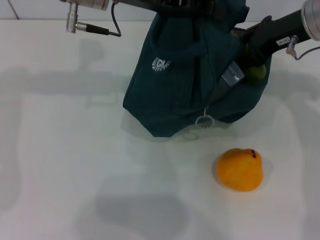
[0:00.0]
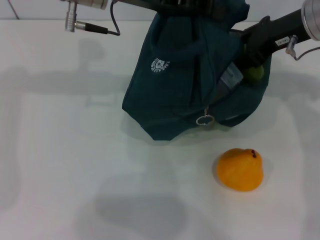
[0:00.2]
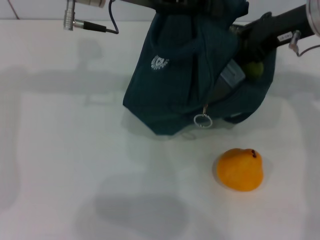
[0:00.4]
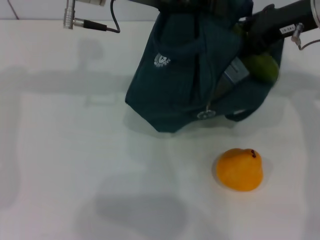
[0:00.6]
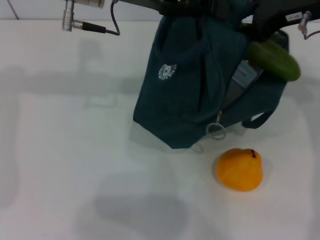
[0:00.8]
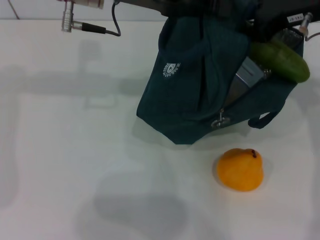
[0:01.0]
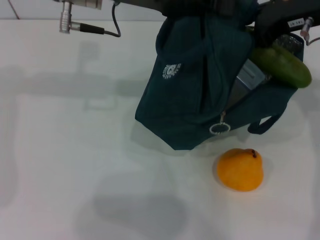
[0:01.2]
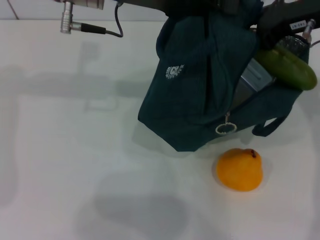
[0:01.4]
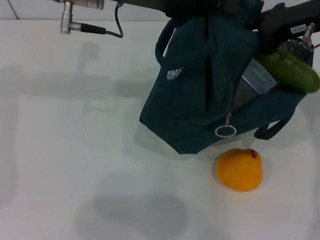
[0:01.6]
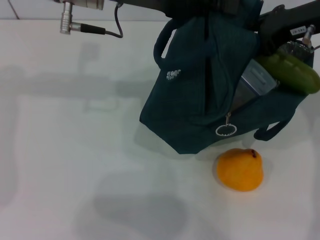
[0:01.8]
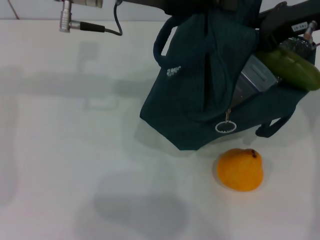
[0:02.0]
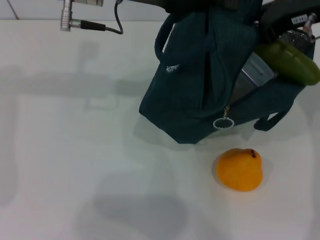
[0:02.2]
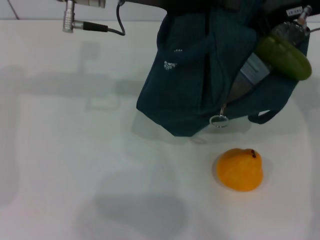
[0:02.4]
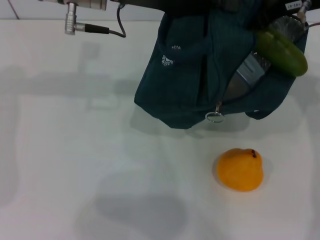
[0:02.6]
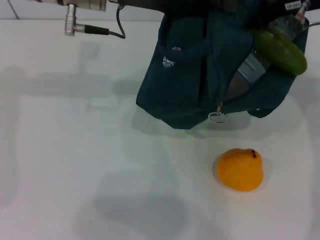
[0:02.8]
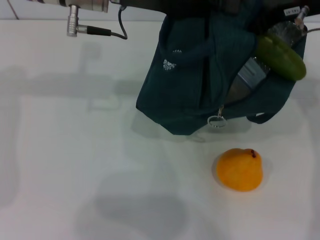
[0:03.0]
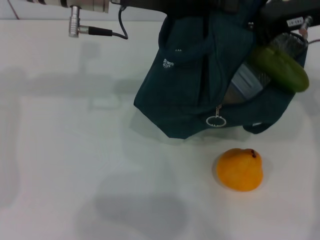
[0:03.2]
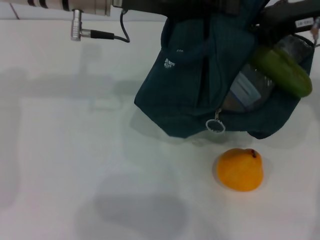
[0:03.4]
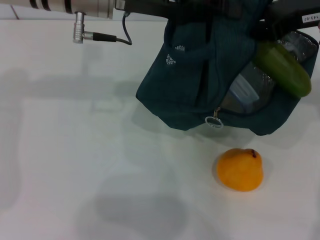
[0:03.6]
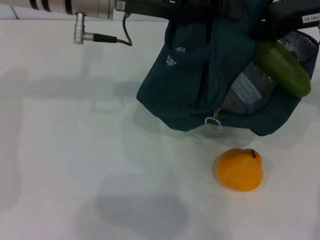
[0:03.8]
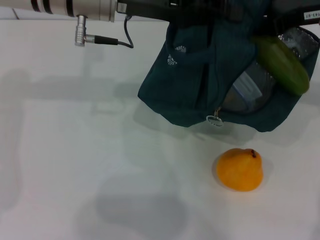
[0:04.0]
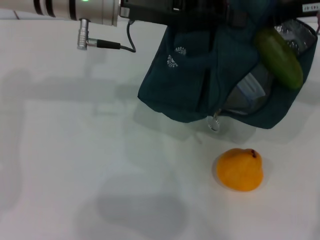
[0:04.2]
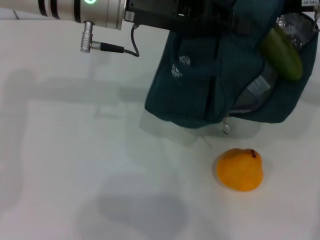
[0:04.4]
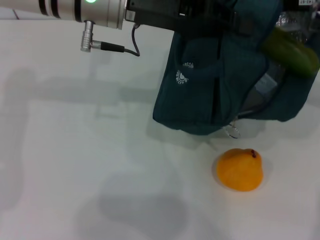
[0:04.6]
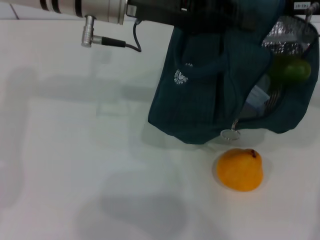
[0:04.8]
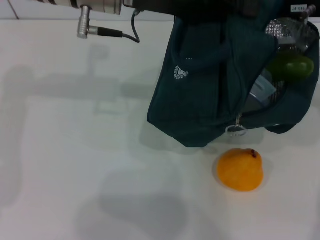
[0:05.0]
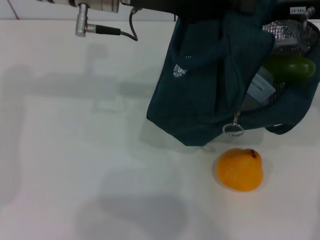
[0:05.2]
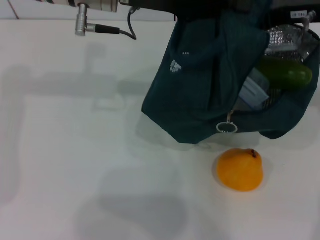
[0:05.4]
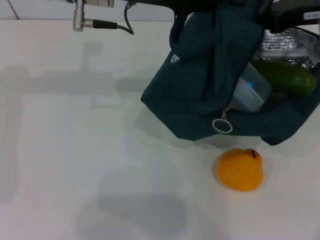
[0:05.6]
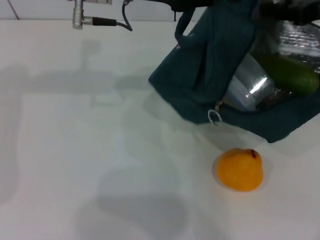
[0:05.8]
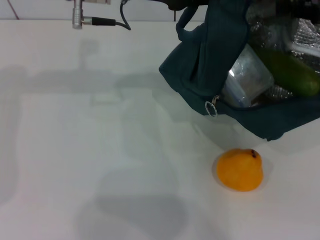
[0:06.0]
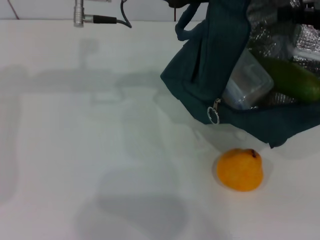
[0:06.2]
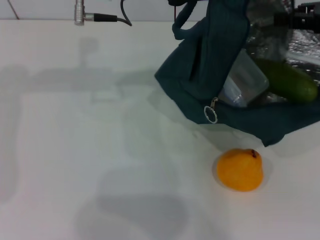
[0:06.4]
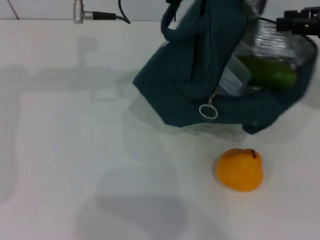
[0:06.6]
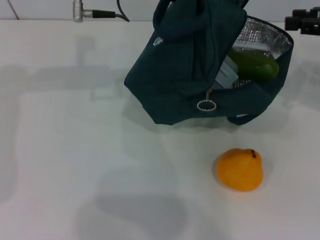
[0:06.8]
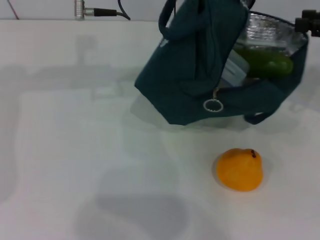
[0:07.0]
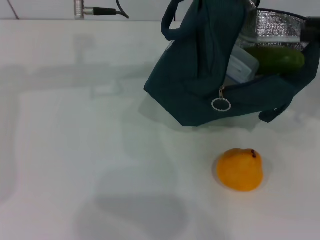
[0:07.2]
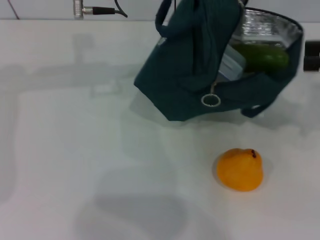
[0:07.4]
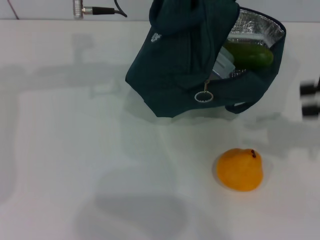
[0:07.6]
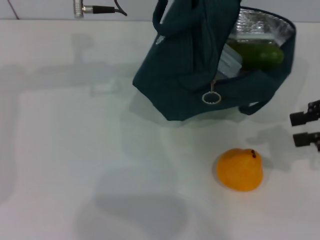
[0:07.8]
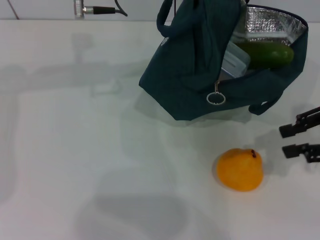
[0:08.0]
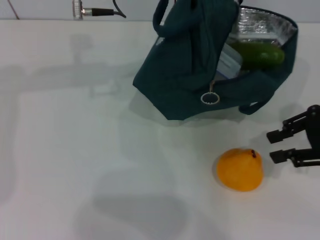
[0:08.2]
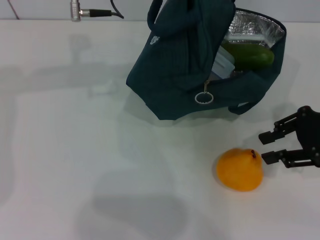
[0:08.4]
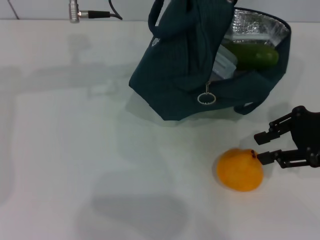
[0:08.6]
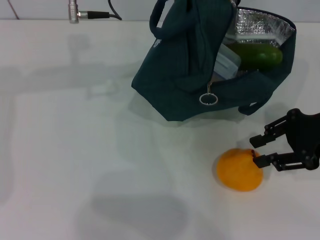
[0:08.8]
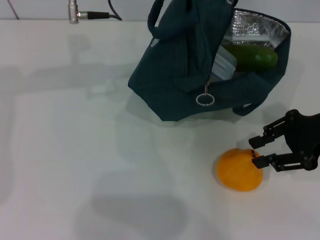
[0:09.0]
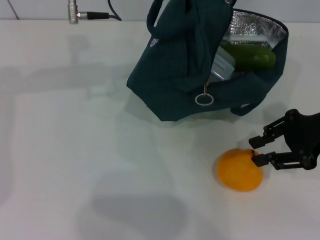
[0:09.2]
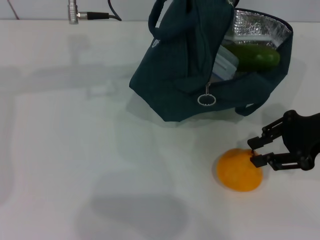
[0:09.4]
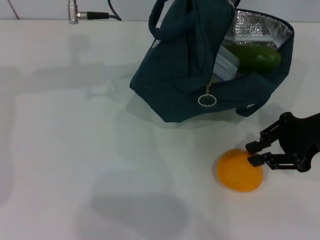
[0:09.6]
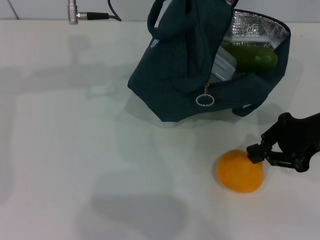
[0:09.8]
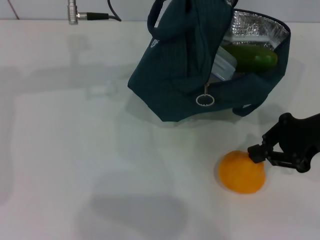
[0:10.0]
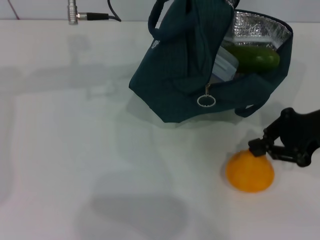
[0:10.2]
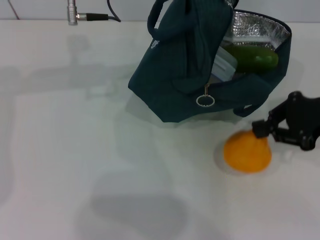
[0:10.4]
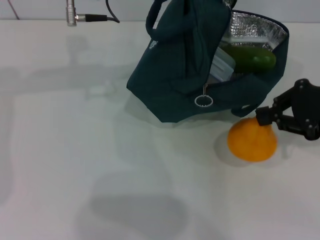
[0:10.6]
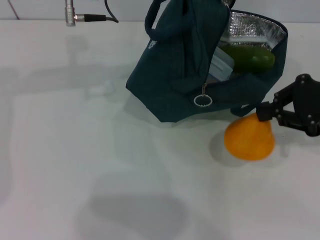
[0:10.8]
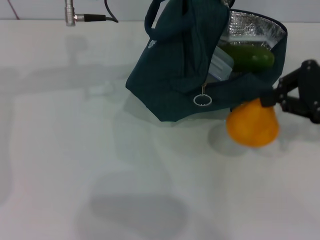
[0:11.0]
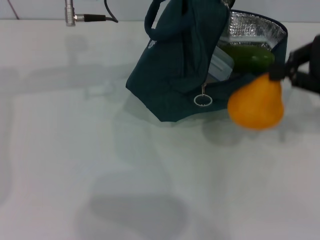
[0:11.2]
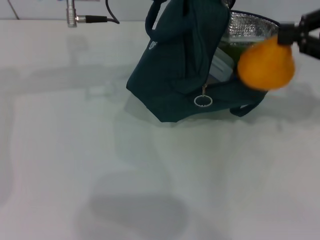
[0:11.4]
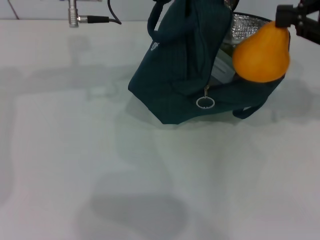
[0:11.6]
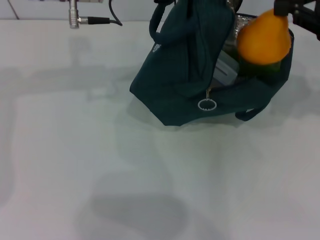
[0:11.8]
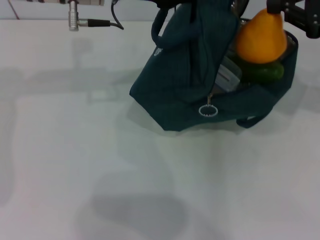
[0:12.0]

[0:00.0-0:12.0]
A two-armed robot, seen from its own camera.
Step, 0:00.0 to 0:06.8: Put the cucumber into the lunch bag with your right hand.
Step, 0:07.2 to 0:09.6: Grab the pear with your right hand.
0:00.0 to 0:03.0: The grippers move only a little.
0:03.0 to 0:04.4: The grippers move only a little.
0:04.4 to 0:06.0: The right gripper goes some 5 cm to the right, and closes its fingers.
0:06.0 to 0:07.6: The right gripper goes about 10 cm backward, and opens.
0:07.6 to 0:09.0: The right gripper shifts approximately 5 cm to the left.
0:09.0 to 0:10.4: The right gripper closes up.
0:10.4 to 0:12.0: The right gripper goes about 5 cm upward.

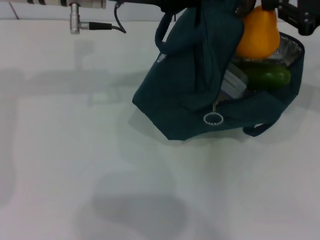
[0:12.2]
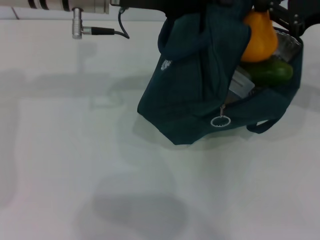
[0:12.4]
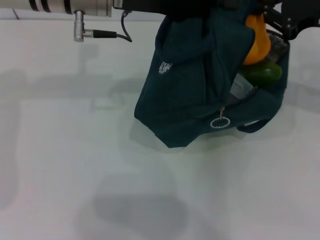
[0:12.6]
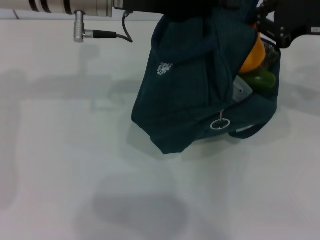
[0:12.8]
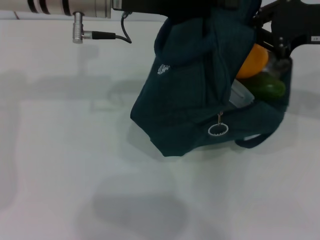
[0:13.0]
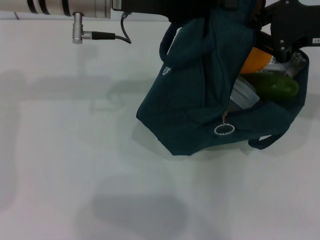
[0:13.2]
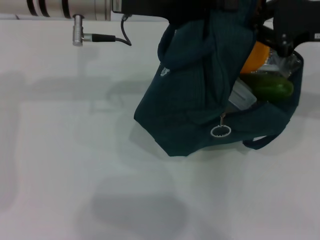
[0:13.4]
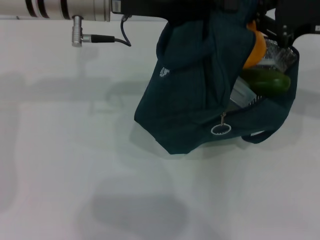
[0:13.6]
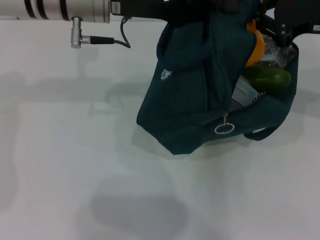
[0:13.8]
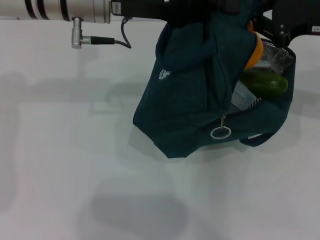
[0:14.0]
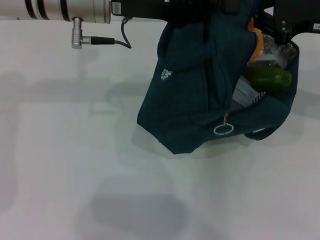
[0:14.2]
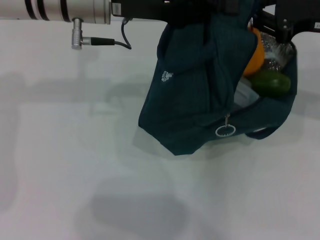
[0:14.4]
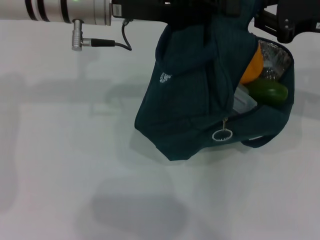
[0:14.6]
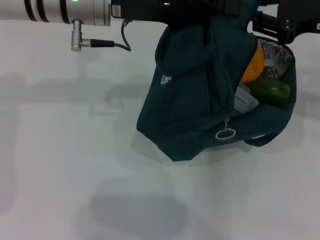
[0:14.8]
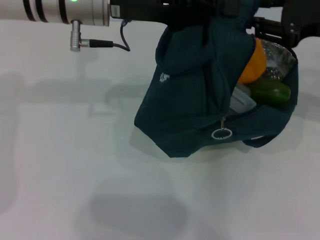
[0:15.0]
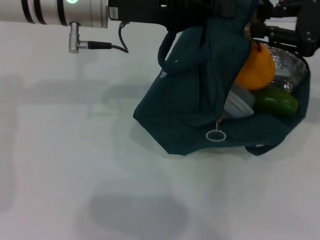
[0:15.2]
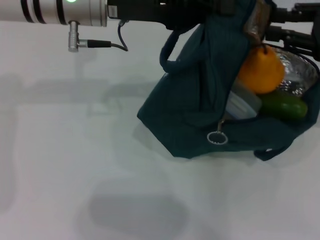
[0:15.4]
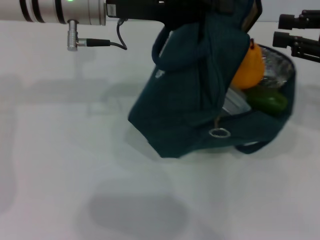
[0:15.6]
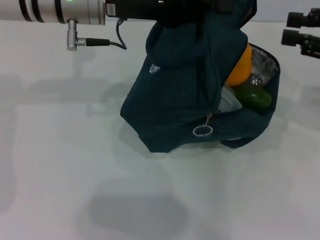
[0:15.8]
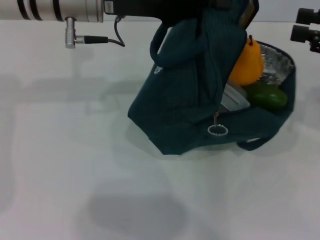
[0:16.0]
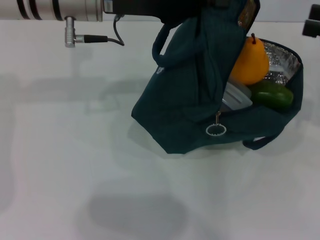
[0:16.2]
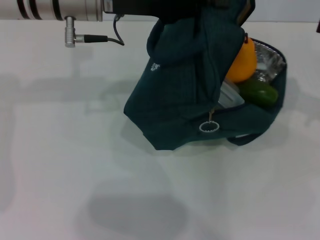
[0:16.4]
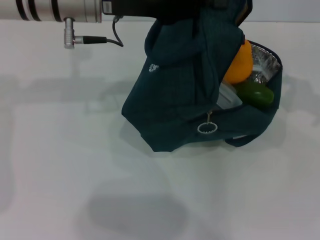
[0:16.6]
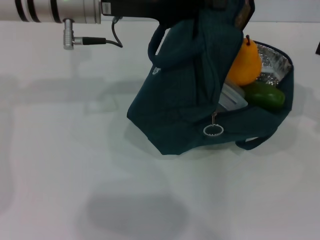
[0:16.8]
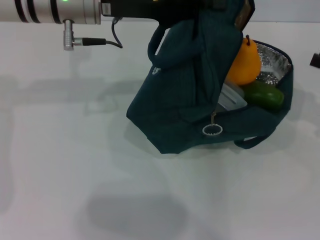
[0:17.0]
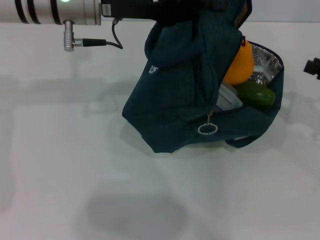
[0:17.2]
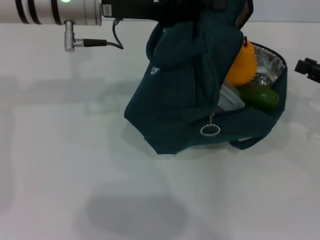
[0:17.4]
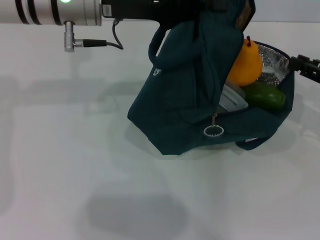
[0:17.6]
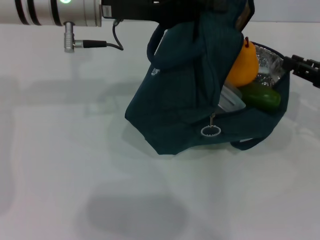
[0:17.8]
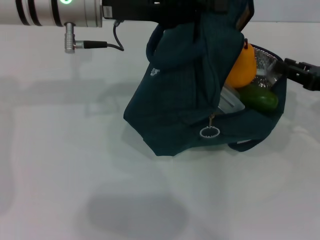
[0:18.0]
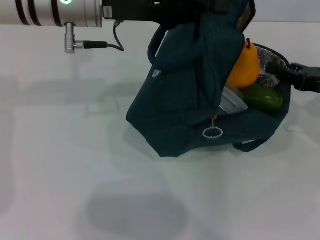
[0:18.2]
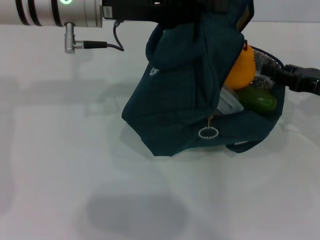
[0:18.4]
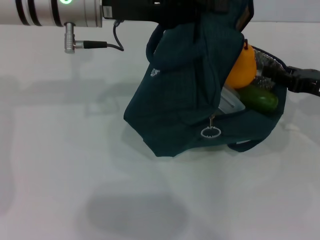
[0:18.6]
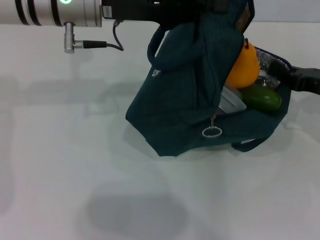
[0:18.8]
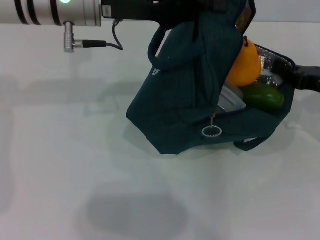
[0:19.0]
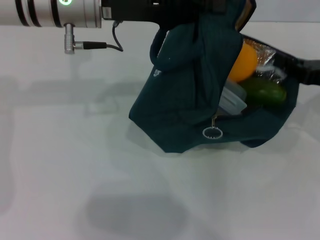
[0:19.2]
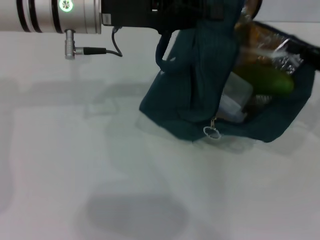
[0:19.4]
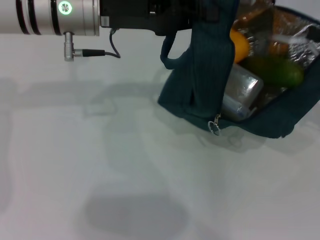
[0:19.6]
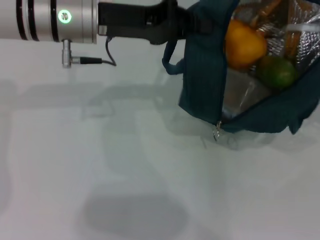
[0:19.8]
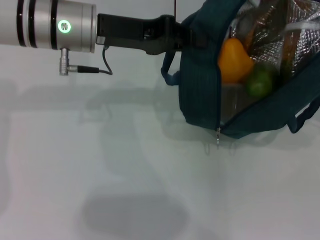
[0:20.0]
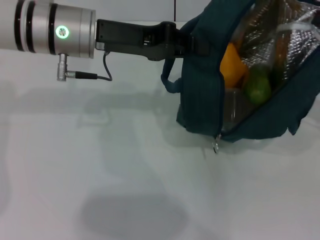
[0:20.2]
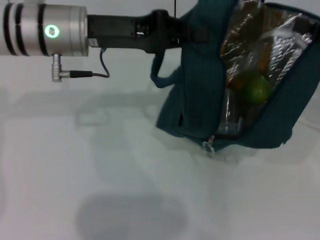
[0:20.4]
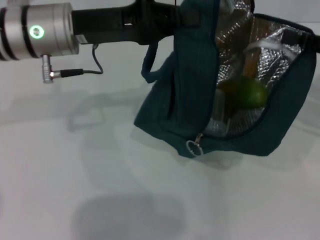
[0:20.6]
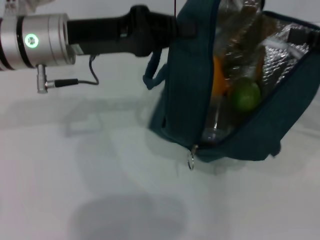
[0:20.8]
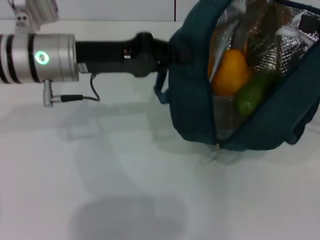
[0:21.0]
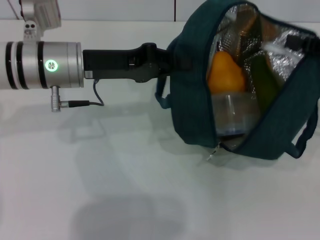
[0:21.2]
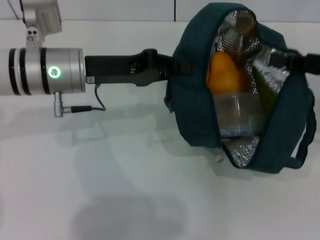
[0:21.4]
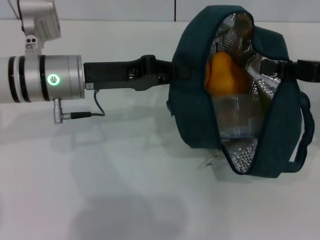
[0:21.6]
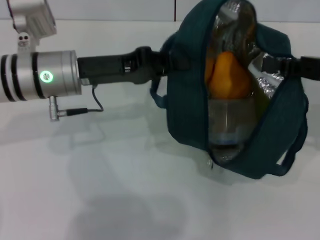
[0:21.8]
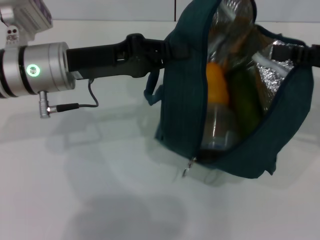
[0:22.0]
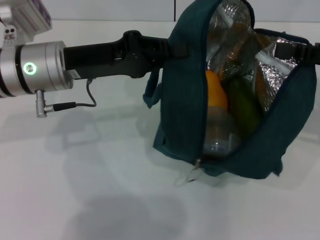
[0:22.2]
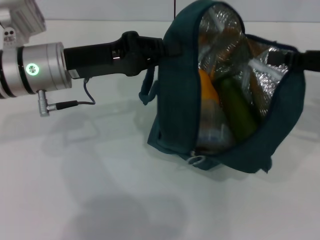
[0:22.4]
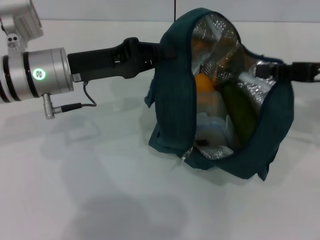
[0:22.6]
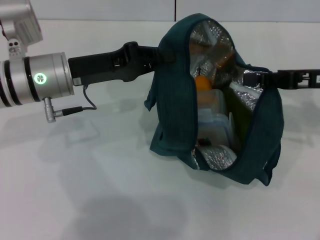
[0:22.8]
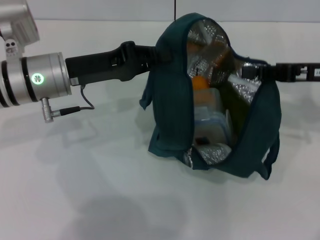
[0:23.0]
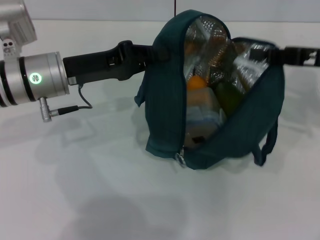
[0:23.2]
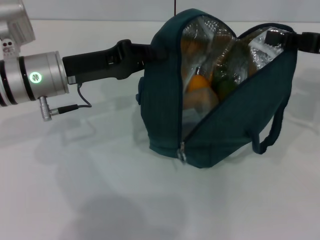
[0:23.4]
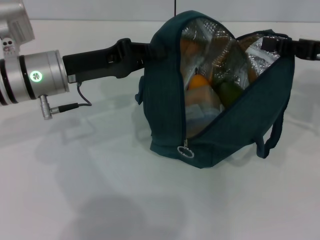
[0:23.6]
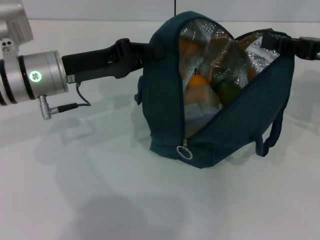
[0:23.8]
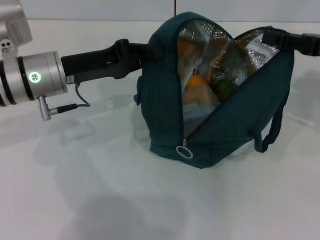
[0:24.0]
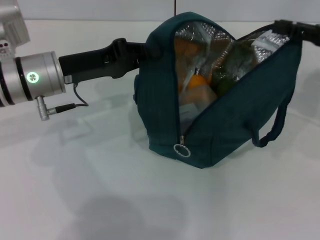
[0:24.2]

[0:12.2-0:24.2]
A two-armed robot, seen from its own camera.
Step, 0:12.2 to 0:15.4: Secure the lunch bag with your left hand.
0:12.2 to 0:13.8: The grippers stay close to where they were, moving slightly.
0:13.8 to 0:15.2: The right gripper opens its fingers.
0:15.2 to 0:16.6: The right gripper moves to the right, about 10 cm.
0:16.6 to 0:18.2: The right gripper heads downward and to the left, covering roughly 10 cm.
0:18.2 to 0:19.8: The right gripper is displaced upward by roughly 5 cm, and closes.
0:19.8 to 0:21.2: The left gripper moves some 5 cm.
0:22.6 to 0:24.2: The right gripper opens.
